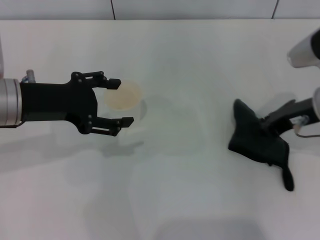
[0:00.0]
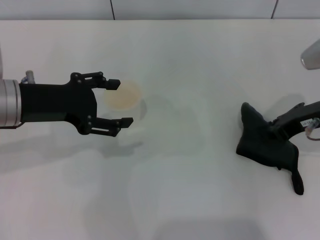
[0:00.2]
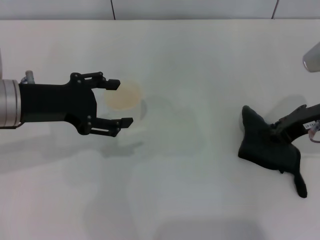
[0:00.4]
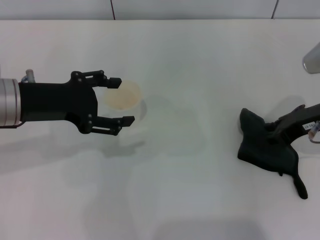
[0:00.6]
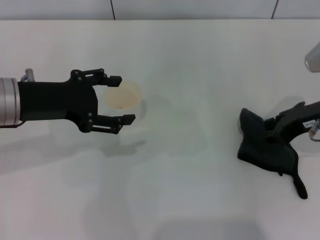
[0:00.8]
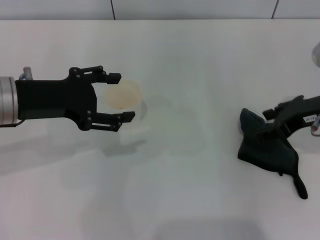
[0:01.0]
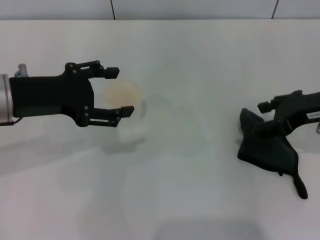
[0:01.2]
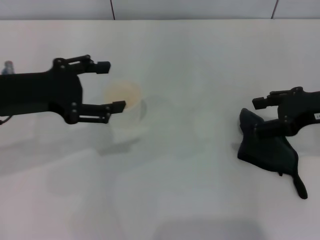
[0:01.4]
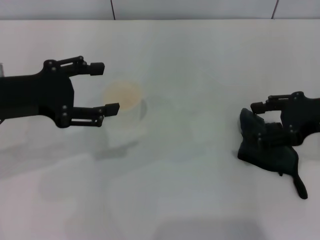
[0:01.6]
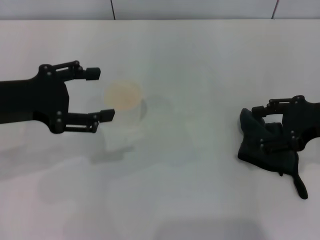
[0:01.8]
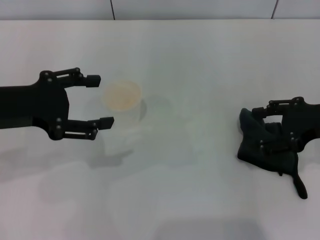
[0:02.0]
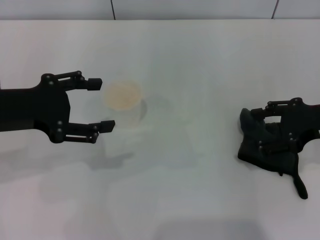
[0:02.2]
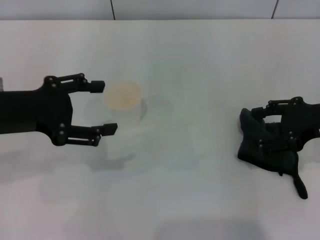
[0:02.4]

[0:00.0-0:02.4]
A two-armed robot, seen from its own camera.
0:00.0 to 0:01.2: The right gripper opens up.
0:01.2 to 0:02.4: The grippers move only a little.

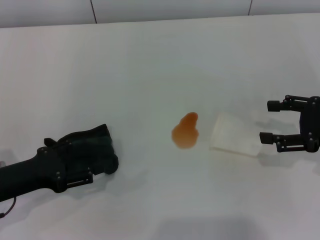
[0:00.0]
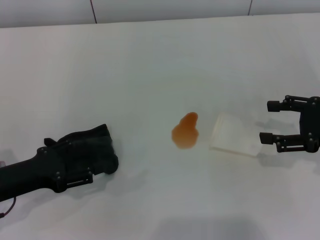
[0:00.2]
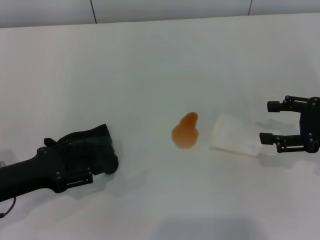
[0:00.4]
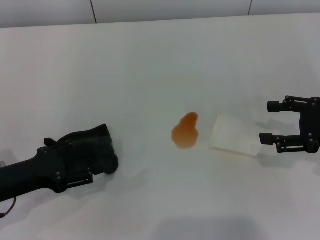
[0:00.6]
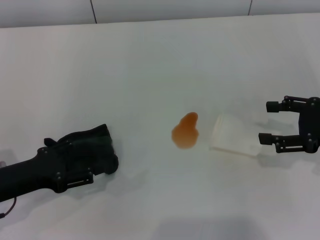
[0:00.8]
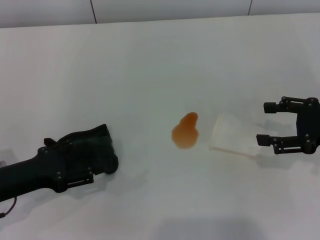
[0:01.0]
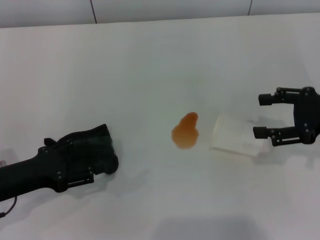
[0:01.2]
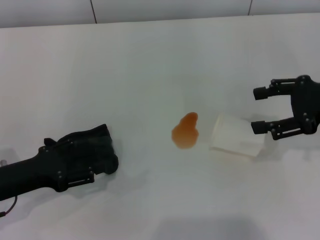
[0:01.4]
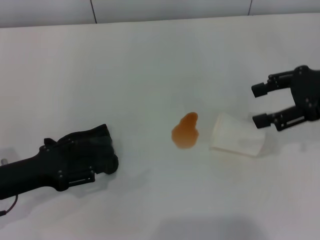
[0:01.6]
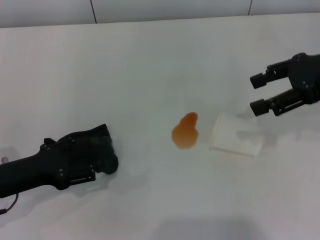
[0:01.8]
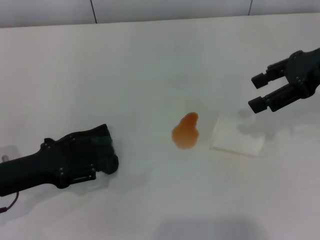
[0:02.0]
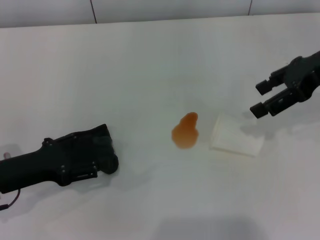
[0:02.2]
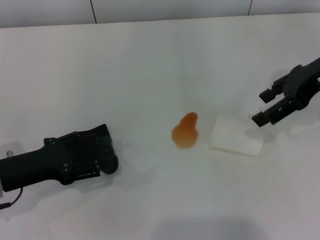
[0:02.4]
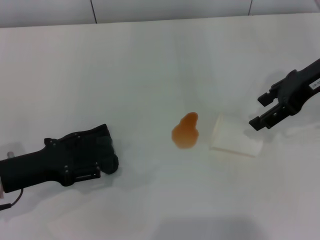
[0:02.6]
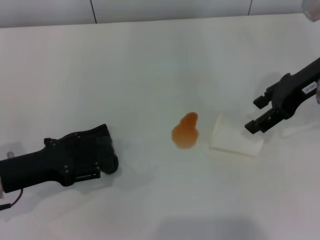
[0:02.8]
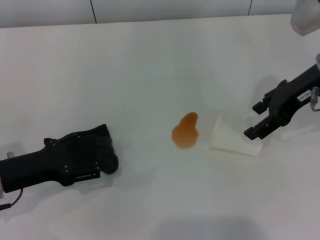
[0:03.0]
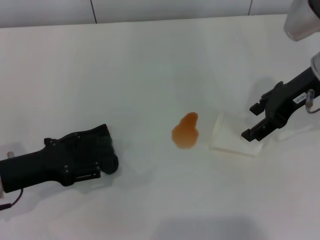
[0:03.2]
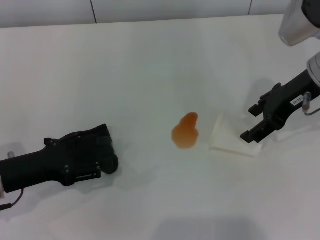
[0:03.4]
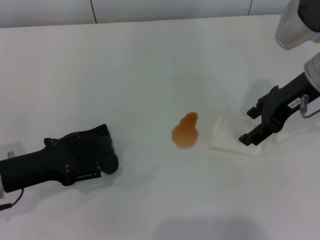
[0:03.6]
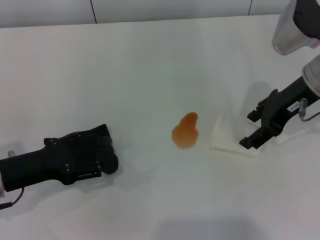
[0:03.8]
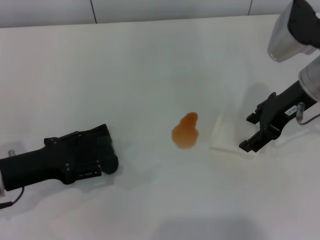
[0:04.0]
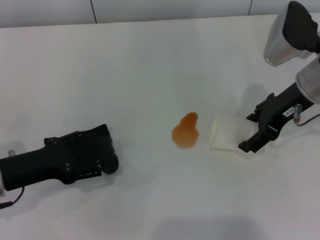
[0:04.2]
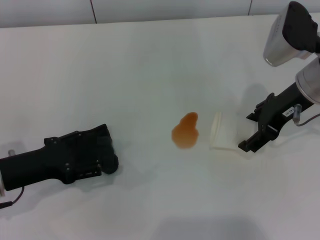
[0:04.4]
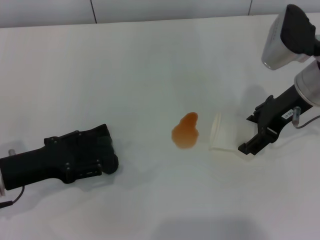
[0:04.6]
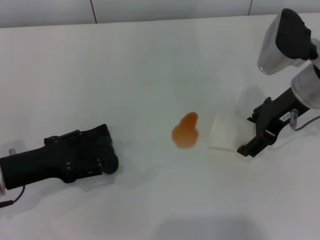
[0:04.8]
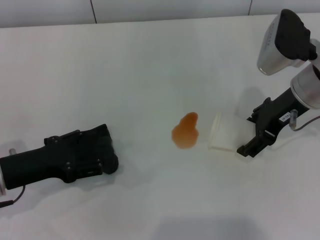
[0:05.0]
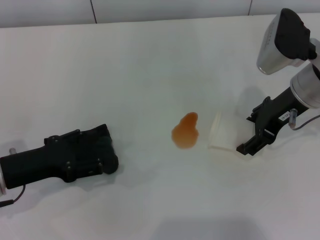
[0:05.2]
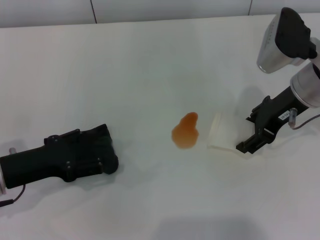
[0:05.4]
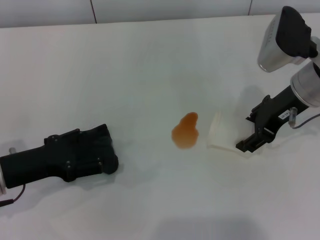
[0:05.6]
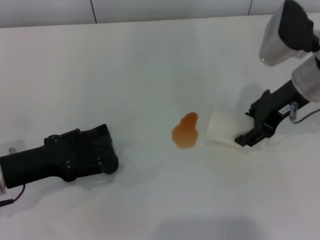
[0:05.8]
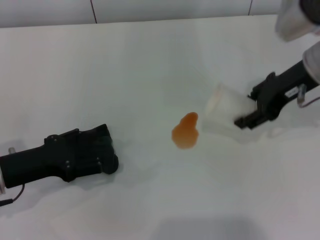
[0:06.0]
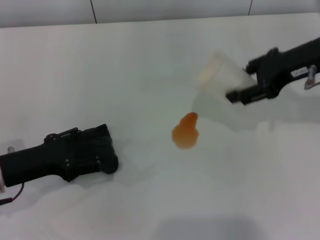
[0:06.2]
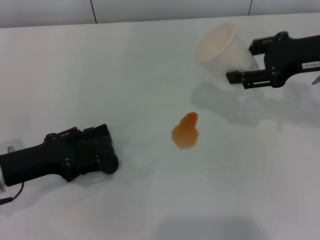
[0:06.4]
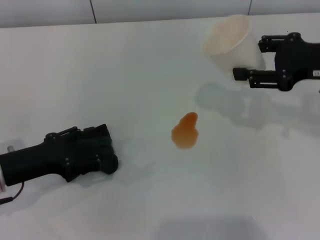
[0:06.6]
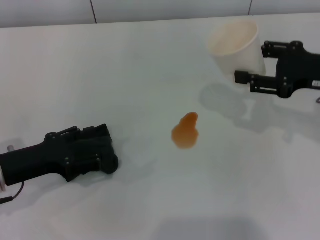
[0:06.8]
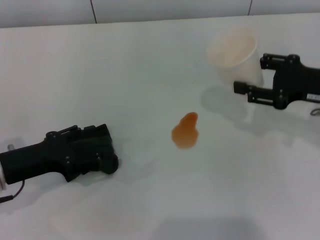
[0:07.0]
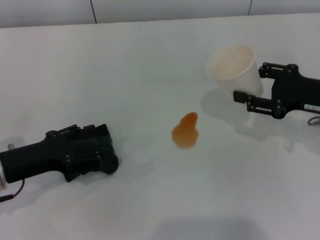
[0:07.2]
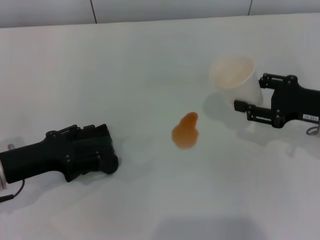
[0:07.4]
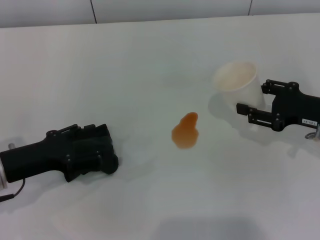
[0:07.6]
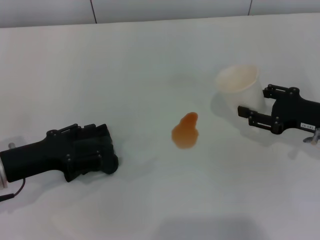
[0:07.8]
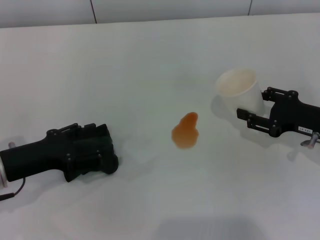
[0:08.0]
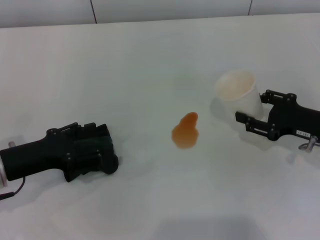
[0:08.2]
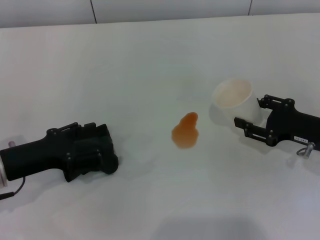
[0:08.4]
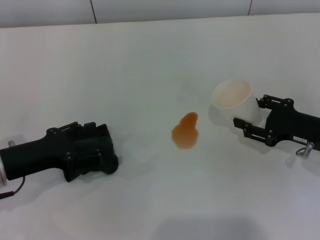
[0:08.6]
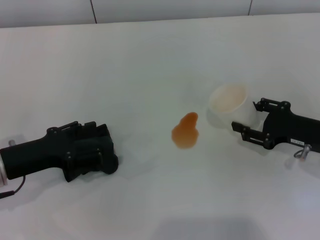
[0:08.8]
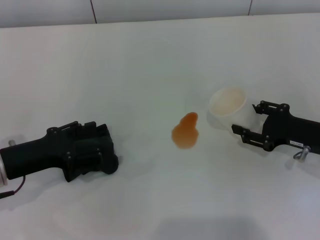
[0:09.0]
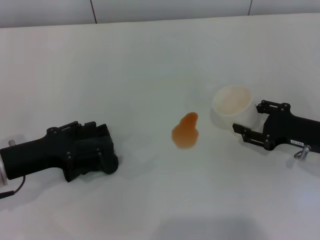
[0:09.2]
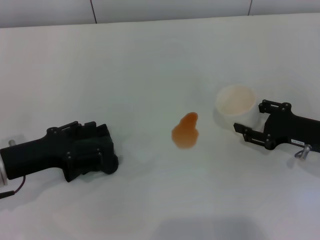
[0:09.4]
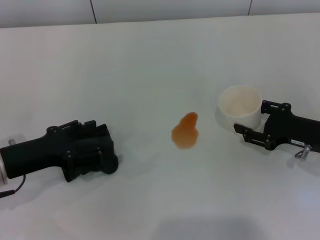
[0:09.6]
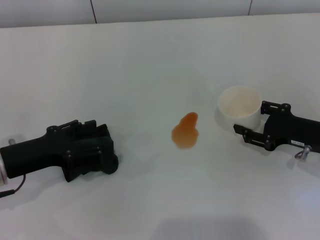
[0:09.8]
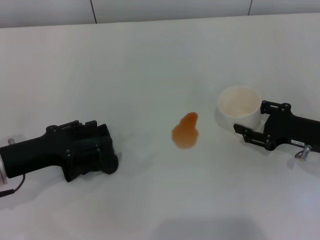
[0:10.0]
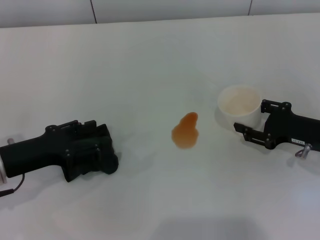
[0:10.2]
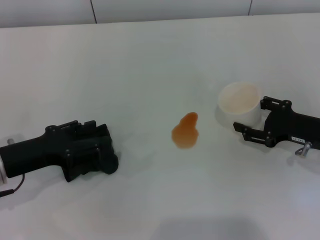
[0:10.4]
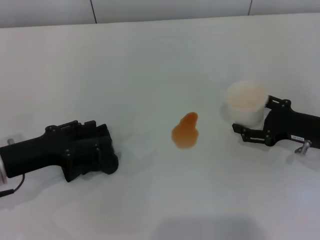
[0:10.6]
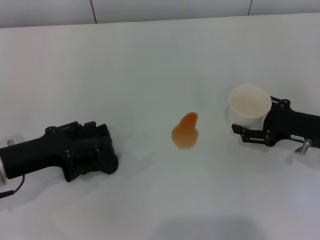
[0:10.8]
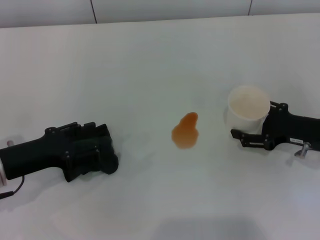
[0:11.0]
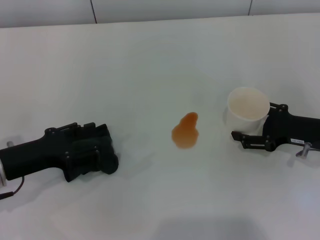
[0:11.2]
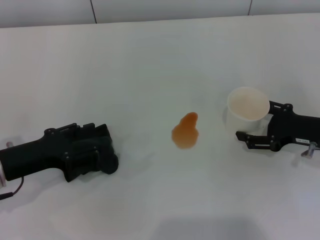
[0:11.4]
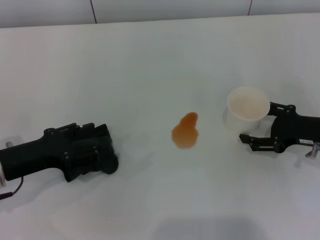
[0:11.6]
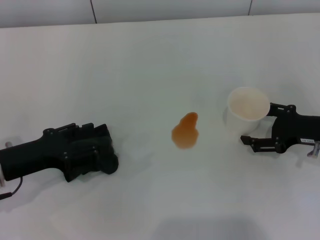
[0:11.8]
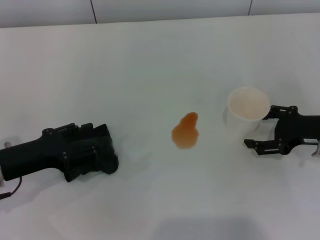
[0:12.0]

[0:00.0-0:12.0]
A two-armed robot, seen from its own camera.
Step, 0:00.0 to 0:05.4: Grasp the paper cup with the right gripper.
Step, 0:05.6 to 0:11.6: Stand the paper cup upright with the right gripper.
0:00.0 to 0:01.6: The right gripper travels upward by some 10 cm.
0:01.6 to 0:03.0: The right gripper moves to the left, roughly 5 cm.
0:03.0 to 0:04.4: The grippers stay close to where they were, moving slightly.
0:04.4 to 0:06.0: The right gripper closes.
0:06.0 to 0:07.6: The right gripper moves downward, to the right and backward, some 15 cm.
0:07.6 to 0:09.0: There are only small adjustments of the grippers.
0:09.0 to 0:10.4: Both grippers stay about where they are.
0:10.4 to 0:12.0: The right gripper opens its fingers.

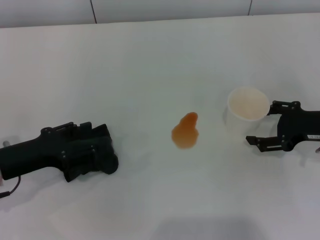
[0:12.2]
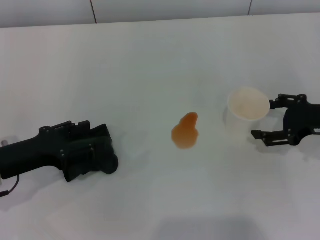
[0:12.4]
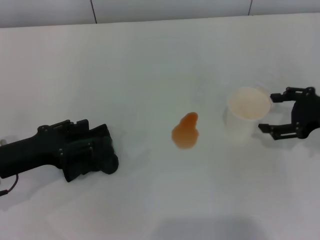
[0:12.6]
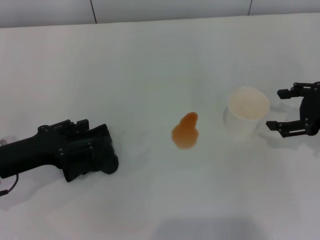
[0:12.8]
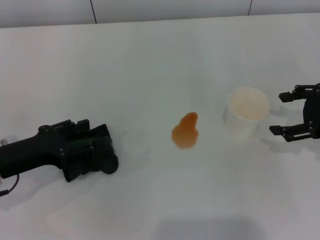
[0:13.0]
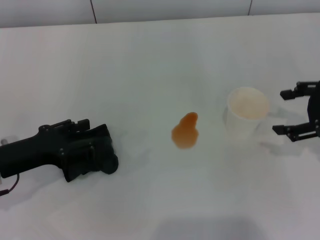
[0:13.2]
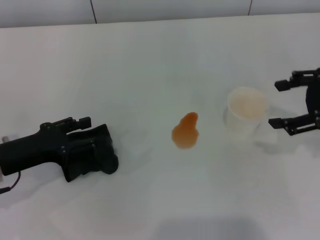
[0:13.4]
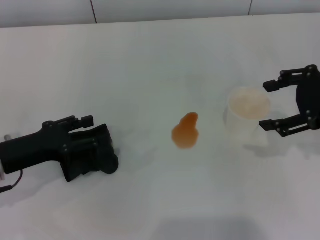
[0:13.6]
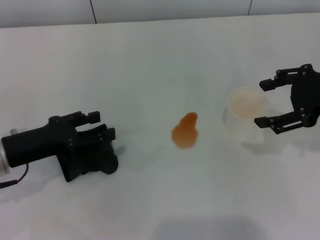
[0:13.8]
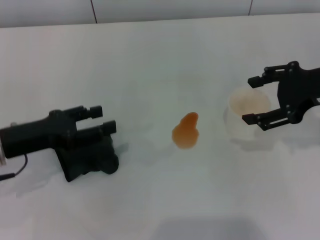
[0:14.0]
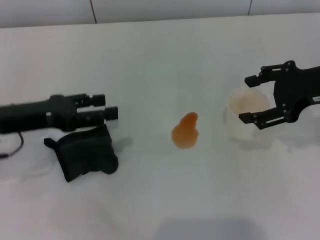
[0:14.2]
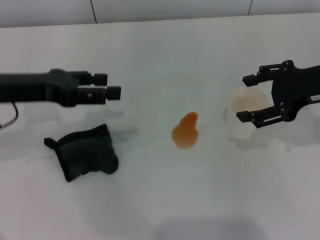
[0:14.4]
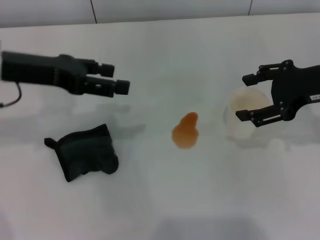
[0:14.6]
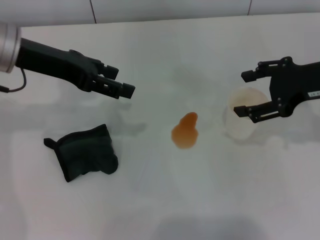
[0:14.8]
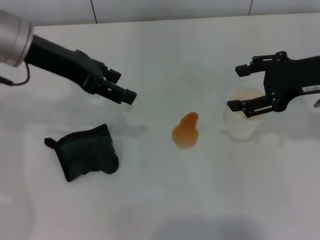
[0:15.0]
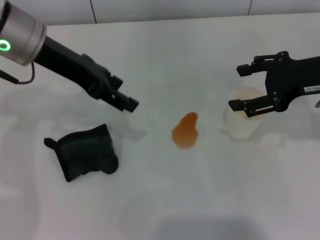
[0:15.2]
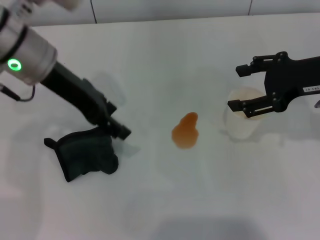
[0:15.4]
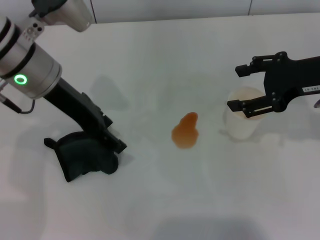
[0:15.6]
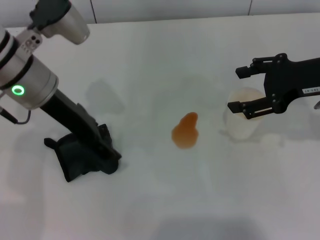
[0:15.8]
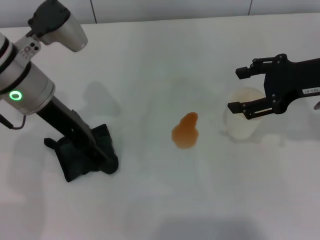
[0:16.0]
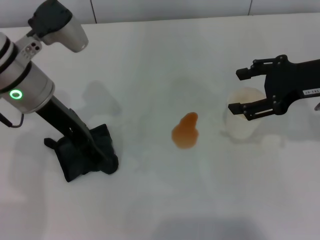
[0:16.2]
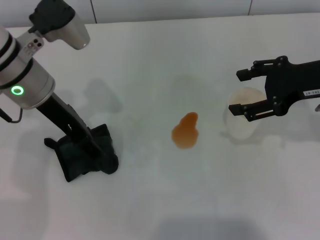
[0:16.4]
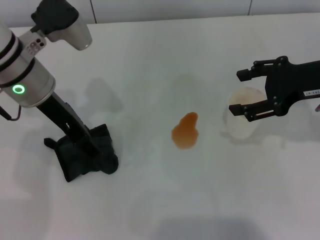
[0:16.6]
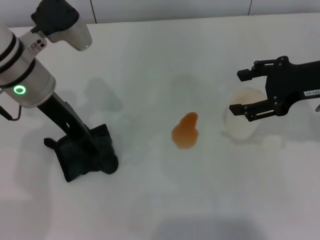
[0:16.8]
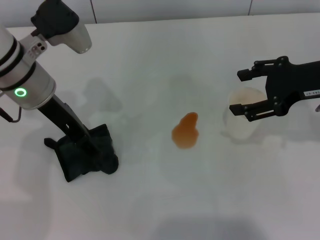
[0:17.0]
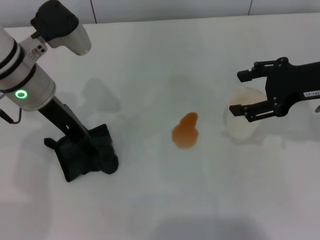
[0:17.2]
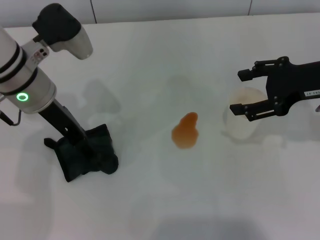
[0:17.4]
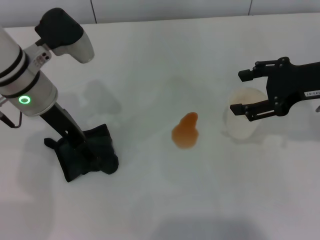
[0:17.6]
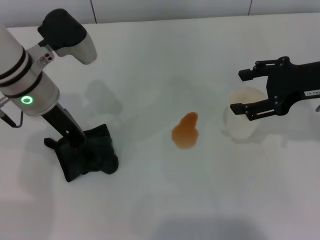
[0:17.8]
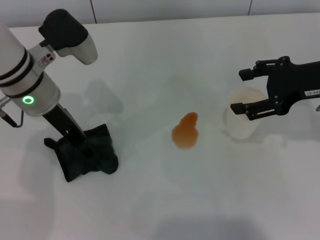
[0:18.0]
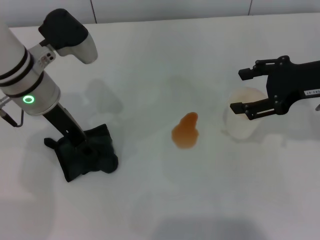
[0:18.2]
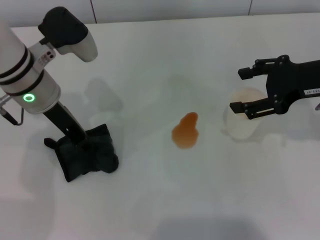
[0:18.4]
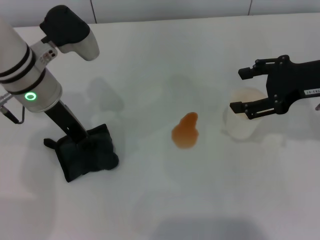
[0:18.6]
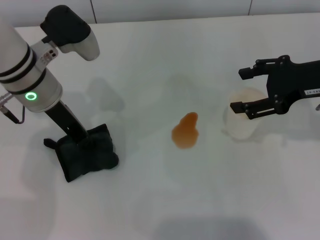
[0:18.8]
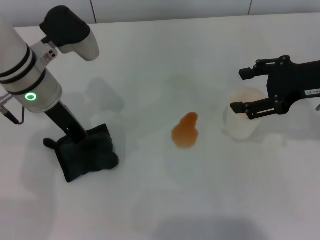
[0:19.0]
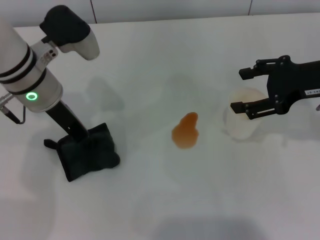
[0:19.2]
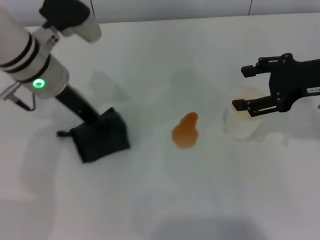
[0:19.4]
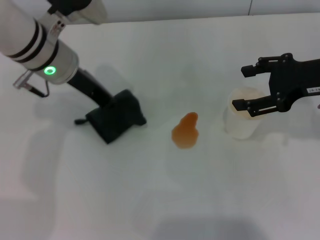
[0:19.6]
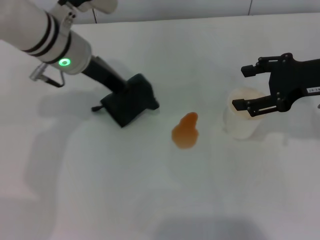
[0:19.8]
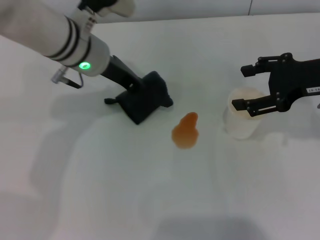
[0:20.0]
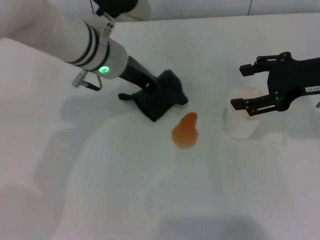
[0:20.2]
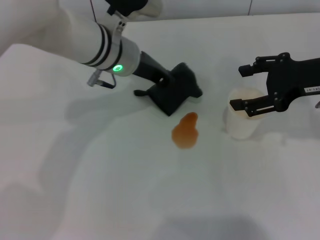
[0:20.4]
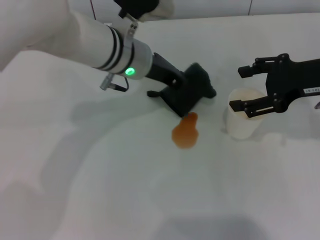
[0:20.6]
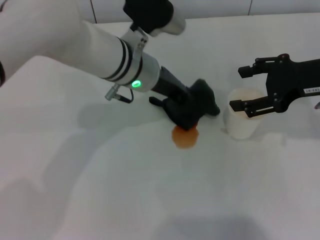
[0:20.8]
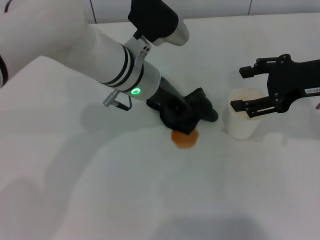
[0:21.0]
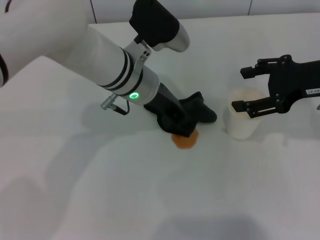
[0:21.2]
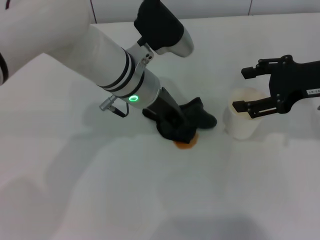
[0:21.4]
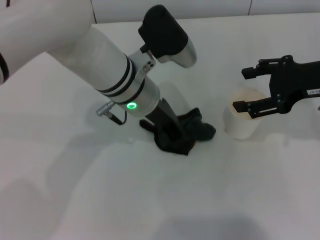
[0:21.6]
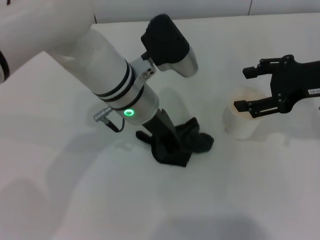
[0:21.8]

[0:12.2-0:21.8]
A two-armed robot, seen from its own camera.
Step, 0:12.2 to 0:19.0: Grasp the rag with the left gripper.
0:12.2 to 0:13.8: The right gripper goes about 10 cm upward.
0:13.8 to 0:15.4: The left gripper shifts about 20 cm upward, forward and to the right.
0:15.4 to 0:17.0: There are only small adjustments of the grippers.
0:17.0 to 0:18.6: The left gripper closes.
0:18.6 to 0:20.2: The left gripper is displaced to the right by roughly 10 cm, and closes its fingers.
0:20.2 to 0:21.8: The left gripper moves backward, approximately 5 cm.
